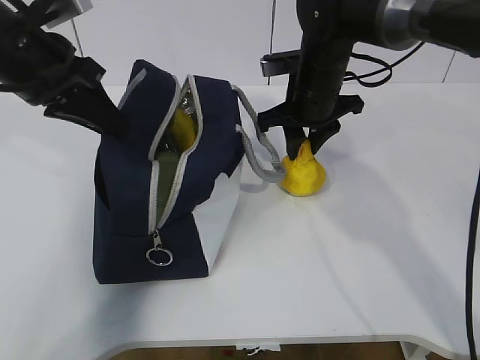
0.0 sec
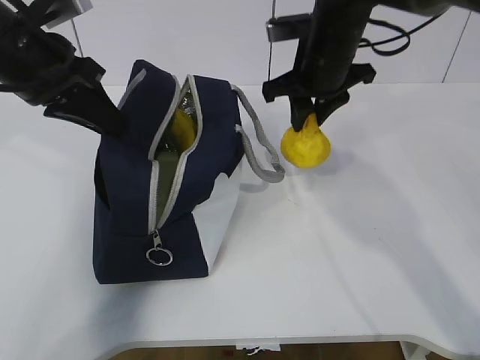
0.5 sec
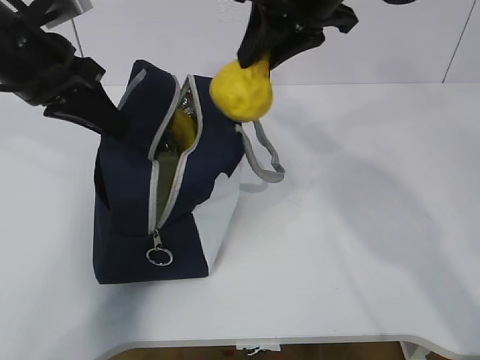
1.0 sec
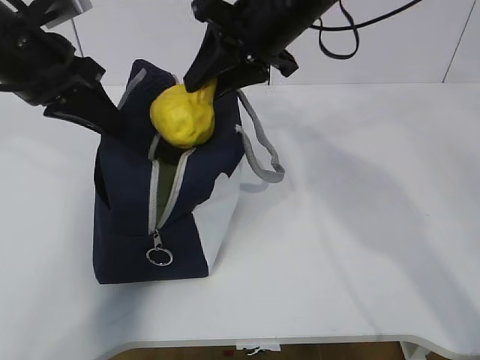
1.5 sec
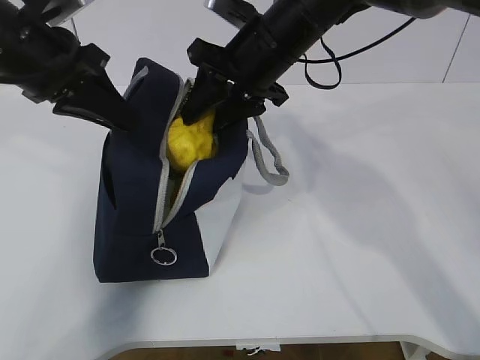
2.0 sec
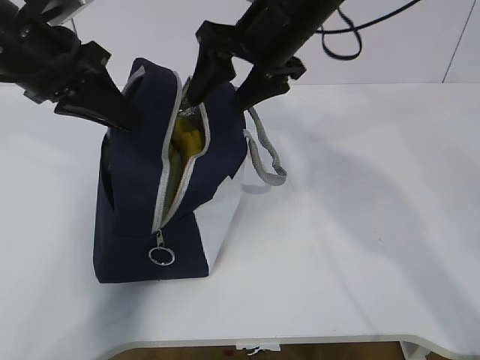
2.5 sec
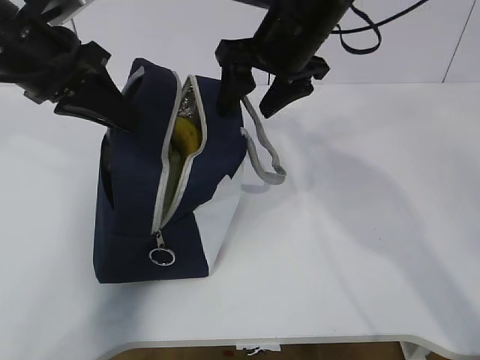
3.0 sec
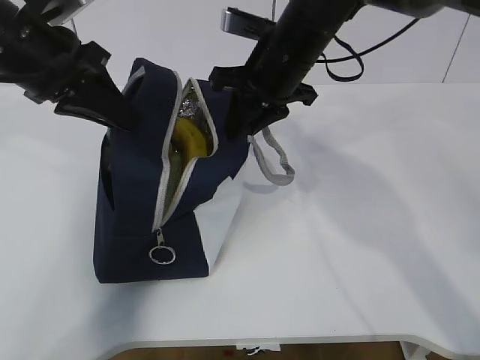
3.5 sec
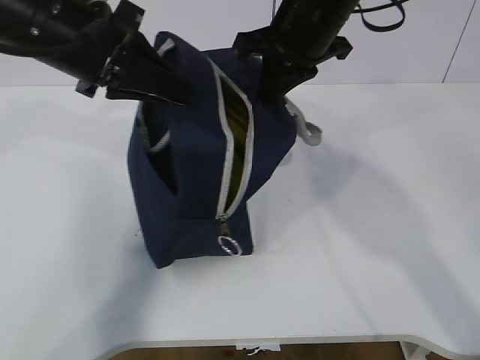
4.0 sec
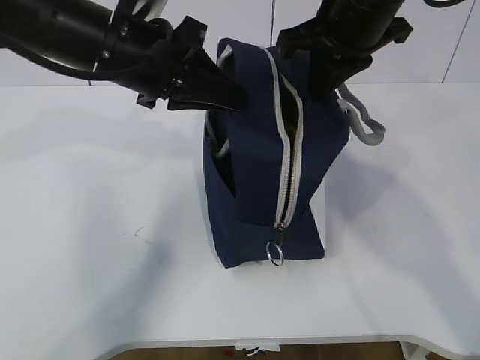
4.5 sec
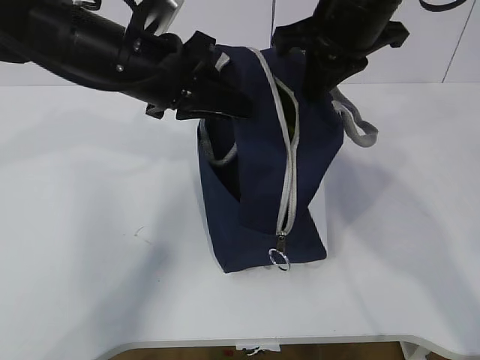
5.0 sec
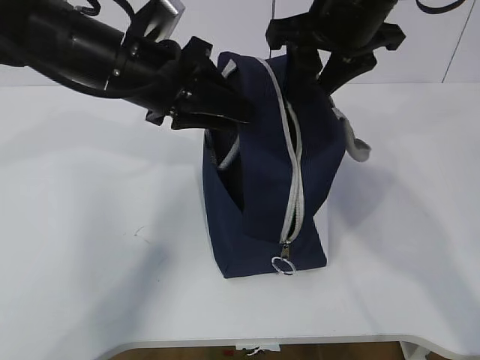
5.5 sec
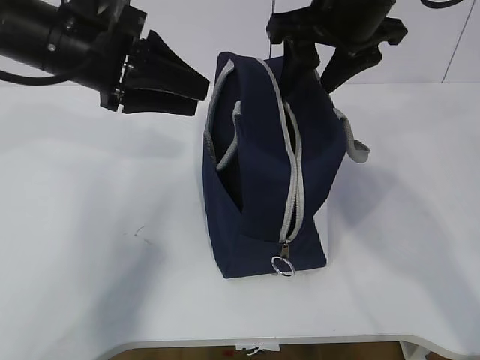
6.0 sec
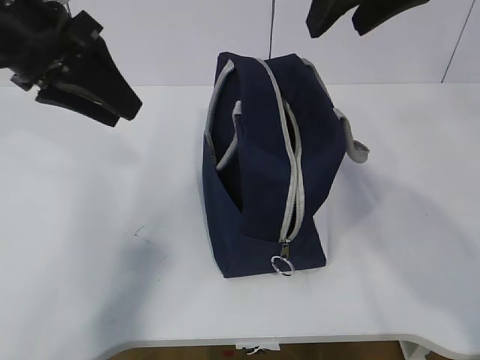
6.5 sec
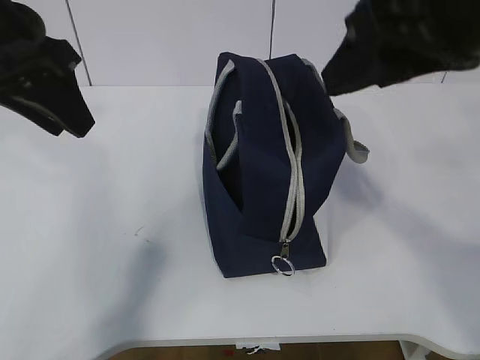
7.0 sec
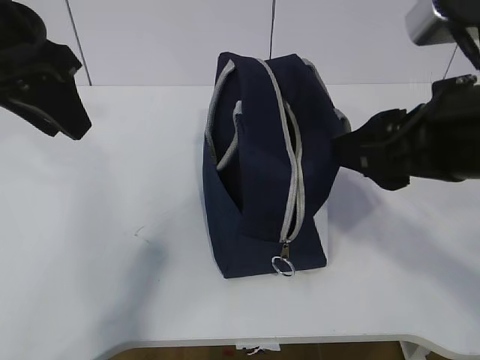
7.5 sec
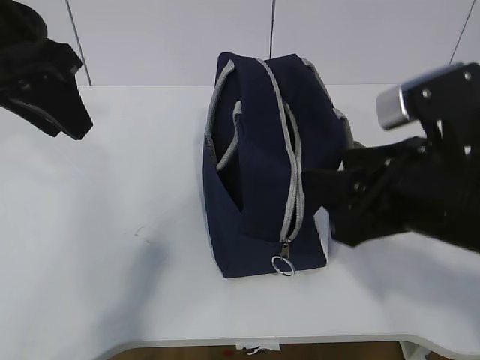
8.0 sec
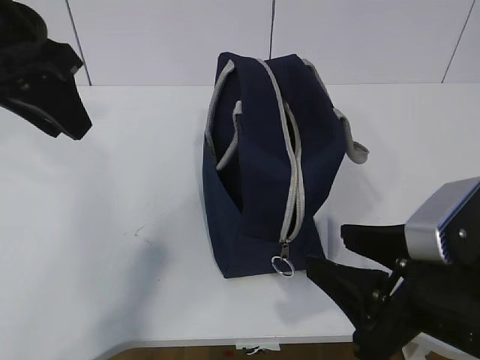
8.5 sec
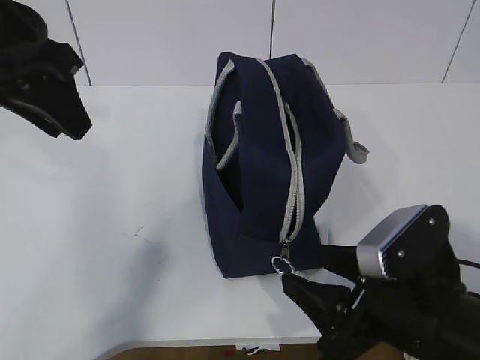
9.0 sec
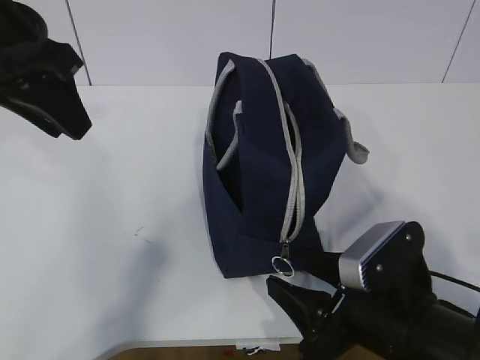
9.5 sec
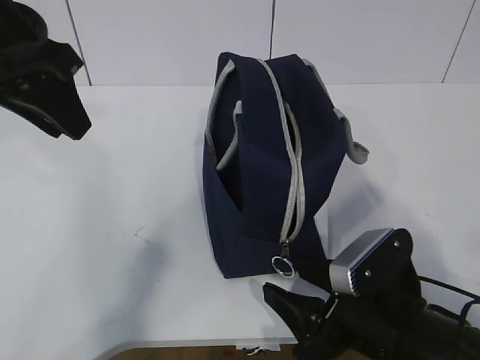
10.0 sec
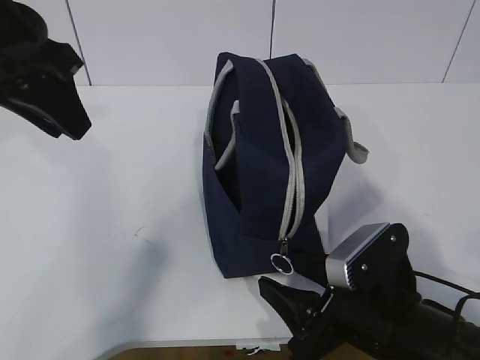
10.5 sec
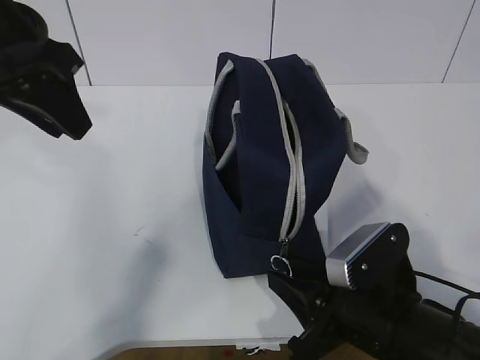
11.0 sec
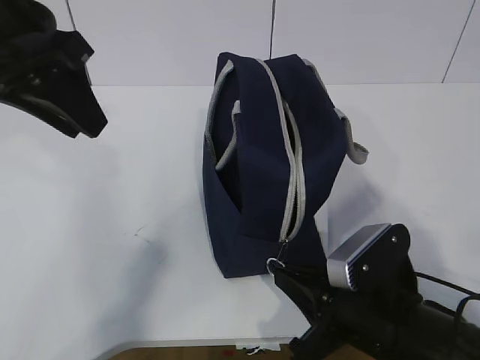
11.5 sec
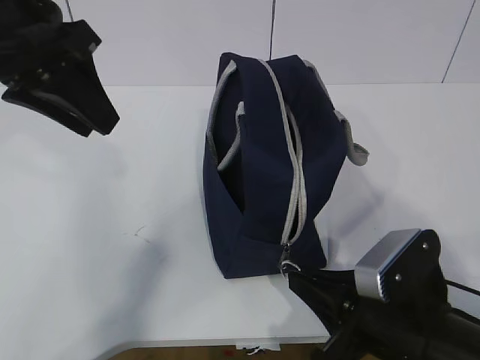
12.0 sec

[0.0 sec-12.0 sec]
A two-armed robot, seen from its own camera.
Step, 0.5 sec to 2.0 sec: Place the pear into the package with the right gripper.
0.0 sec to 2.0 sec: The right gripper goes approximately 10 cm upward and to the left.
2.0 sec to 4.0 sec: The right gripper moves some 5 cm, and closes.
4.0 sec to 6.0 sec: The right gripper opens; the left gripper opens up.
6.0 sec to 8.0 sec: The left gripper travels backward and upward by approximately 5 cm. The right gripper is displaced backward and downward by approximately 20 cm.
8.0 sec to 10.0 sec: The right gripper goes roughly 15 cm downward.
10.0 sec to 12.0 sec: The right gripper closes up.

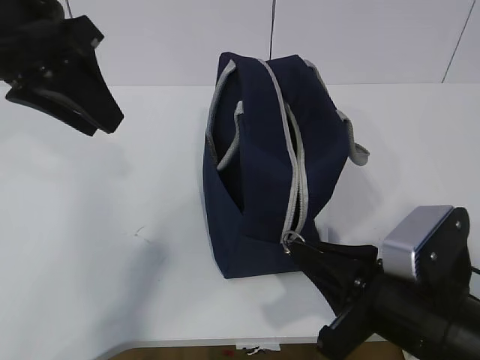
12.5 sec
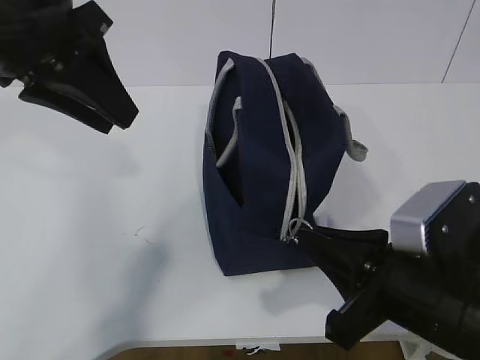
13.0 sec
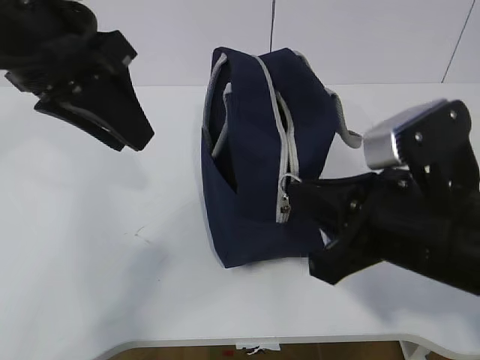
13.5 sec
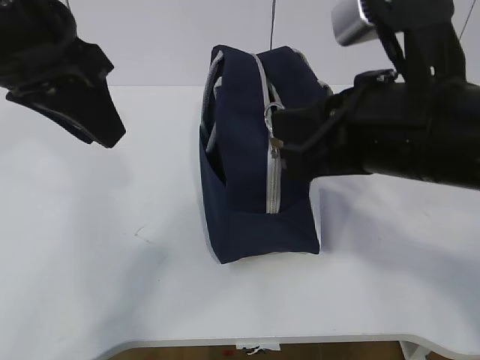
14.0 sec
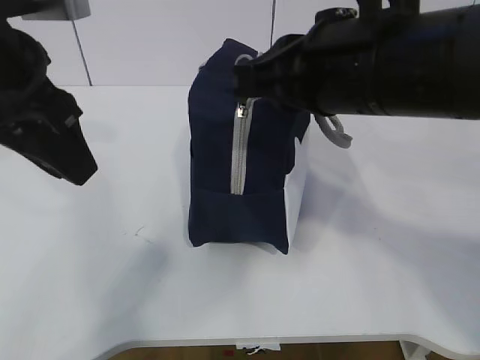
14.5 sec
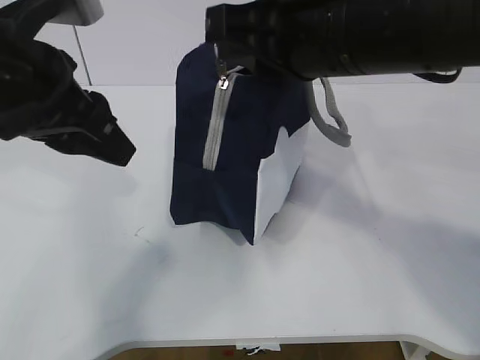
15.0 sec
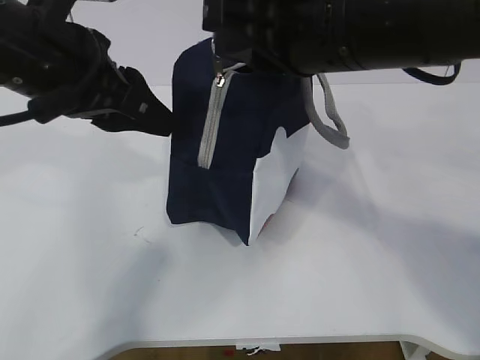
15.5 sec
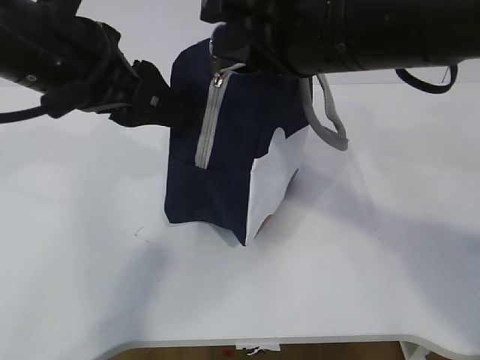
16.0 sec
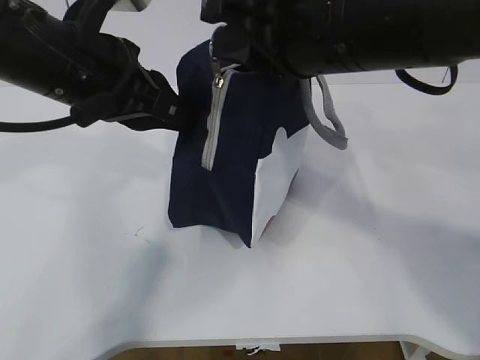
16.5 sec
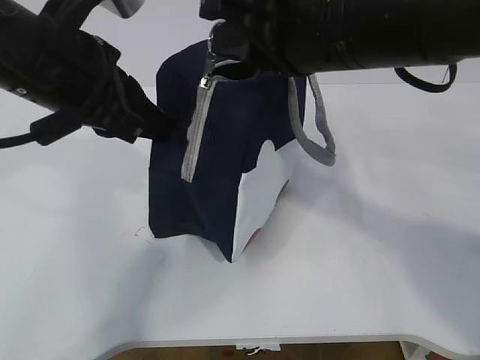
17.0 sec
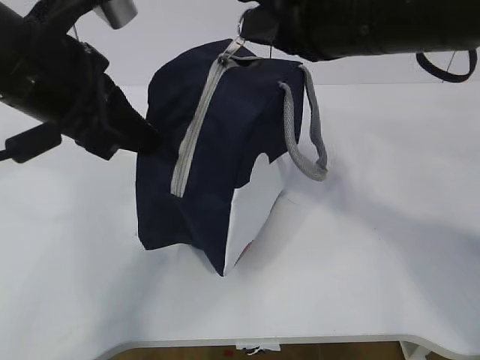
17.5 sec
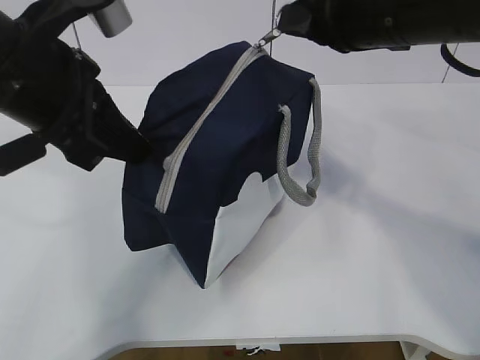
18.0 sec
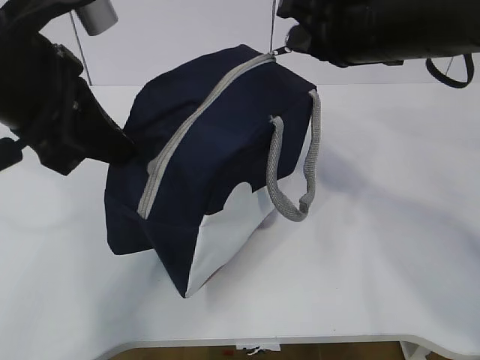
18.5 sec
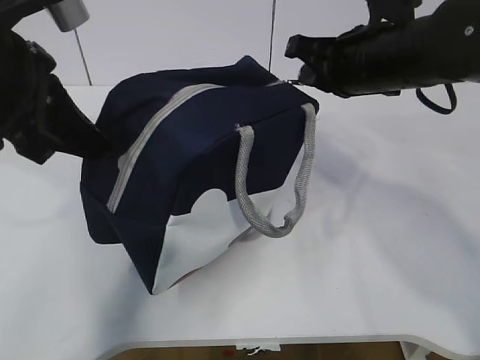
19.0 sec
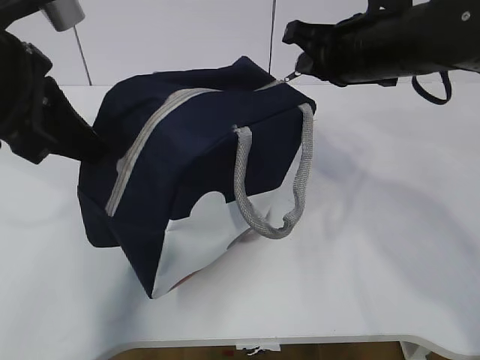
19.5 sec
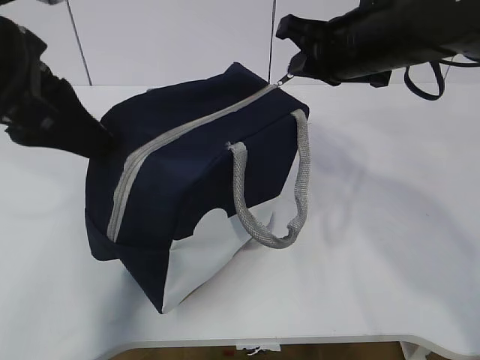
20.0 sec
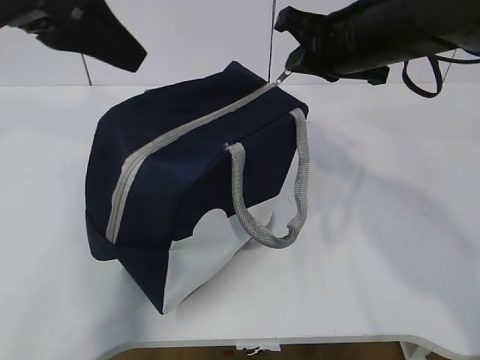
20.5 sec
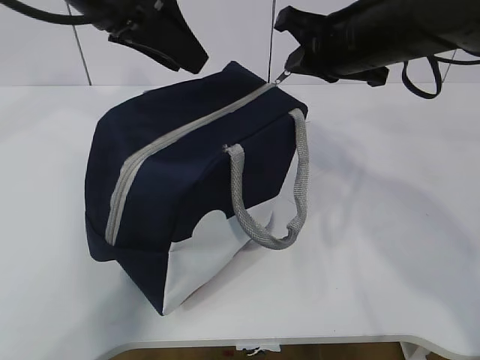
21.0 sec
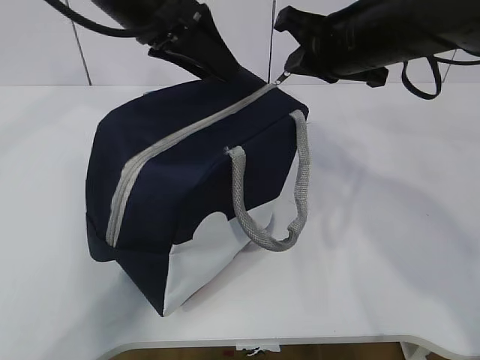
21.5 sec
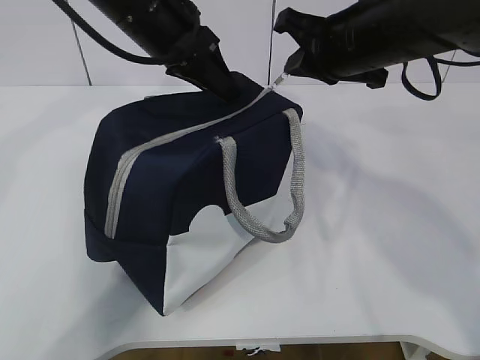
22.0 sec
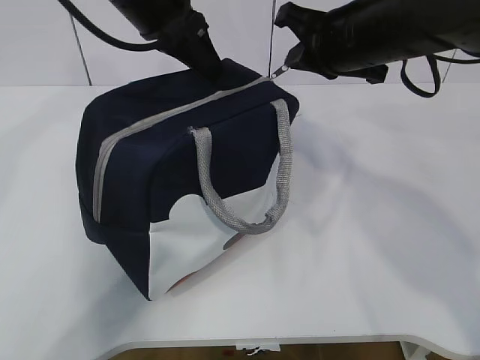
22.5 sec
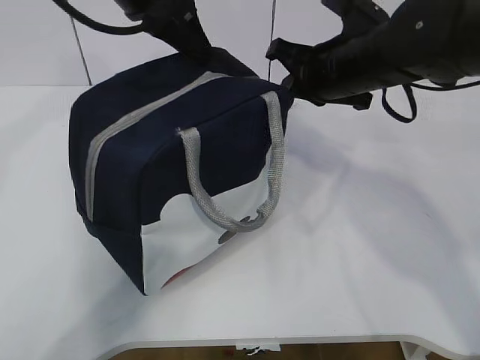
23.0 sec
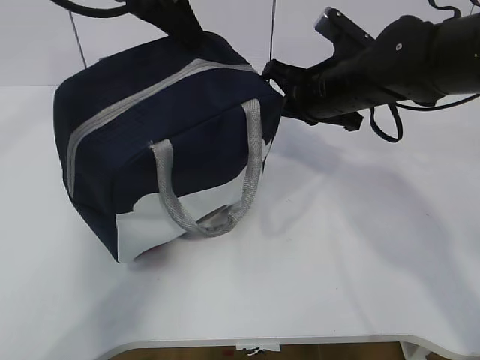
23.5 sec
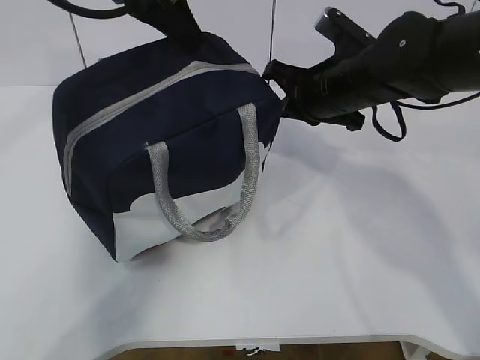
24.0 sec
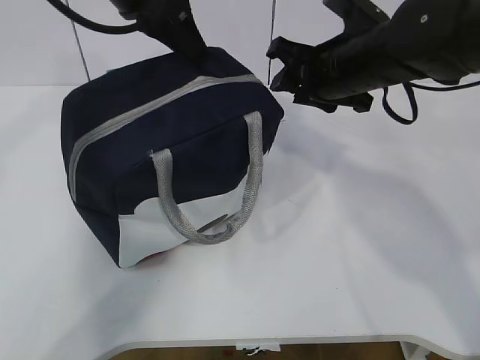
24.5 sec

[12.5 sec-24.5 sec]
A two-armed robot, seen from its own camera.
Step, 12.5 sec to 24.5 sec: zip up the zipper to close the bag.
12.5 sec to 14.5 sec: The right gripper goes some 20 cm upward and forward.
14.5 sec to 16.5 sec: The left gripper ends up some 5 cm from where it was, and closes up.
16.5 sec to 18.5 sec: The right gripper shifts about 10 cm forward and to the right. Meanwhile the left gripper shifts by roughly 5 cm.
18.5 sec to 20.5 sec: The left gripper moves upward, approximately 5 cm, and opens up.
20.5 sec to 22.5 sec: The left gripper shifts approximately 15 cm forward and to the right, and closes.
22.5 sec to 24.5 sec: The right gripper opens its fingers.

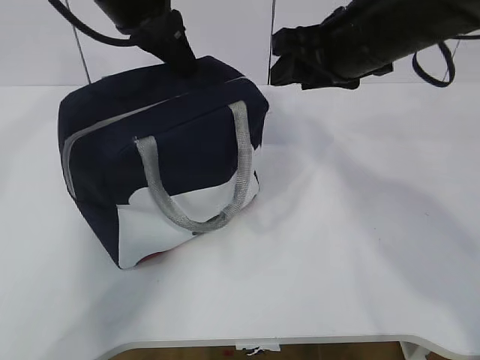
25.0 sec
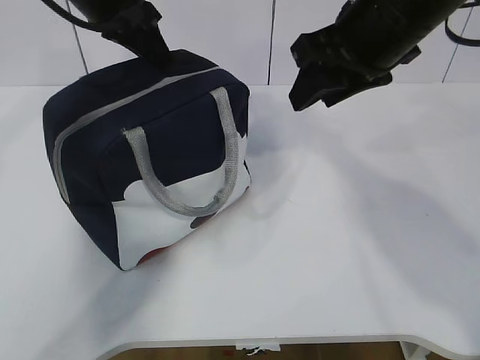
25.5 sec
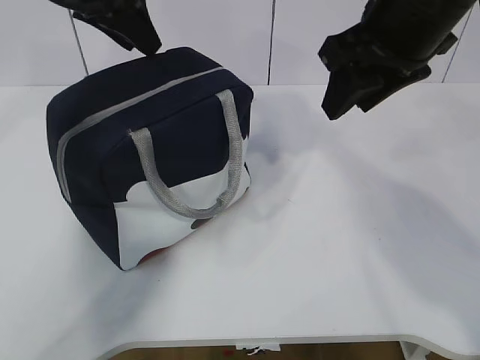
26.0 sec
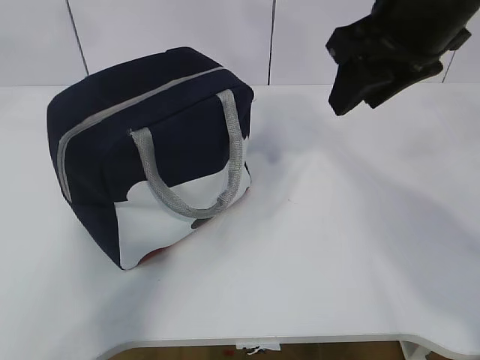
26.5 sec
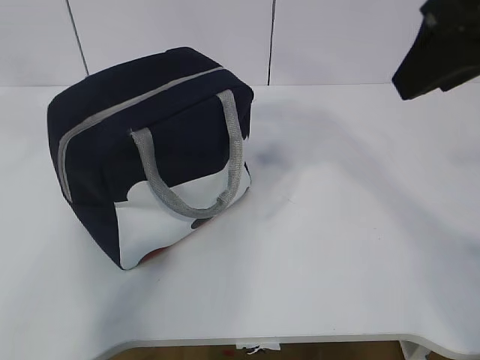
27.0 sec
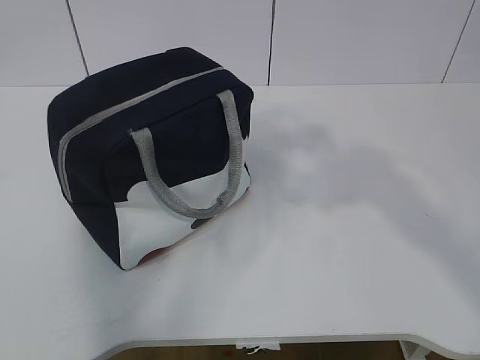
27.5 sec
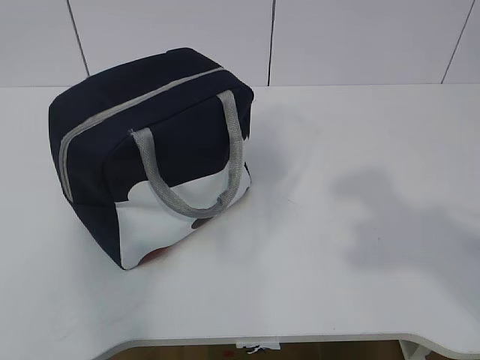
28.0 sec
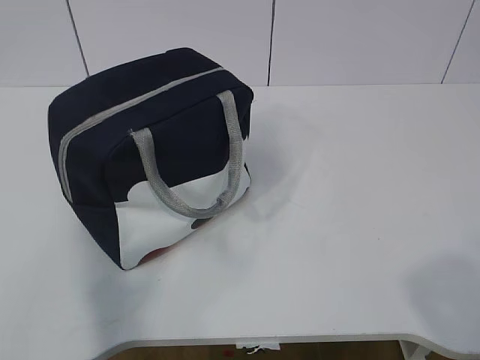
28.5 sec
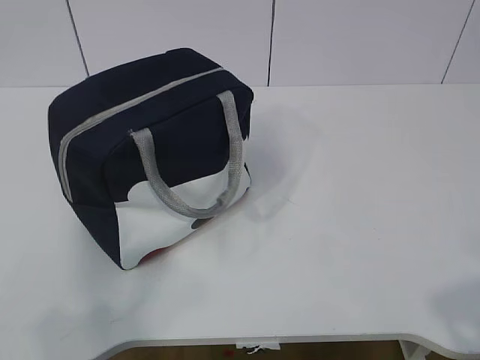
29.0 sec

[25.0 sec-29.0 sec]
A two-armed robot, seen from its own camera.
25.0 sec to 27.0 sec: The right gripper moves backward and upward, approximately 15 cm. The left gripper shifts approximately 25 cm backward, upward and to the left, and opens its fingers.
27.0 sec to 29.0 sec: The grippers both shift backward and downward by approximately 30 cm.
